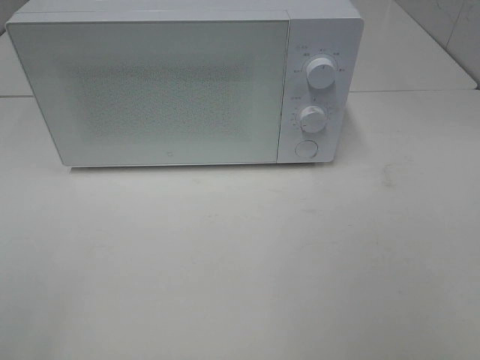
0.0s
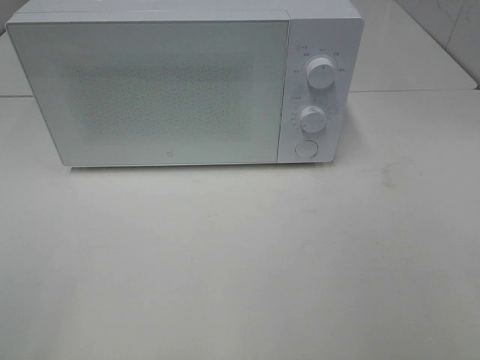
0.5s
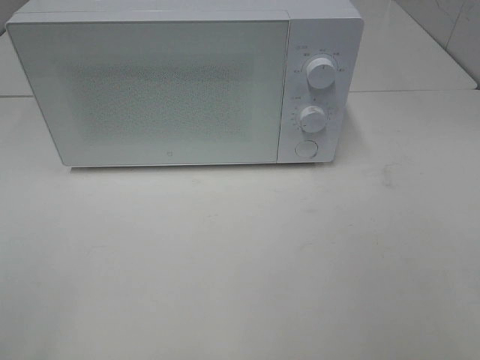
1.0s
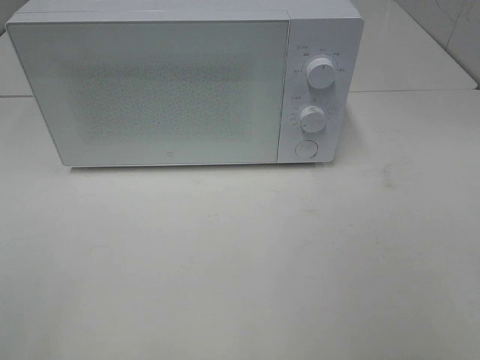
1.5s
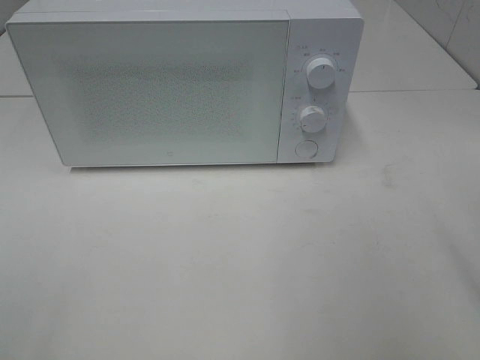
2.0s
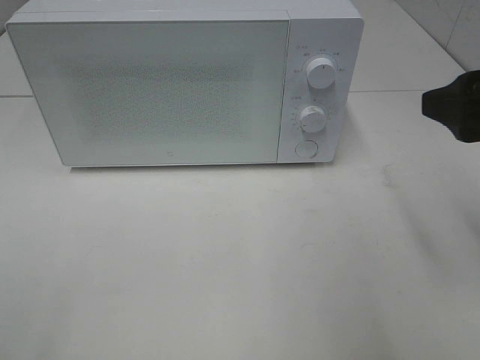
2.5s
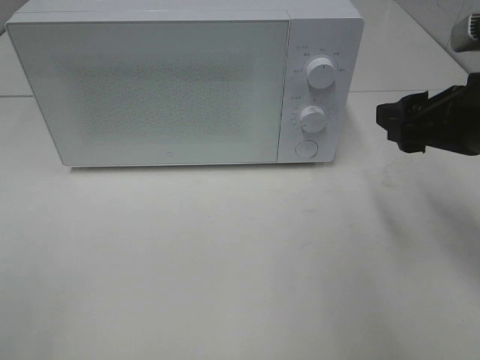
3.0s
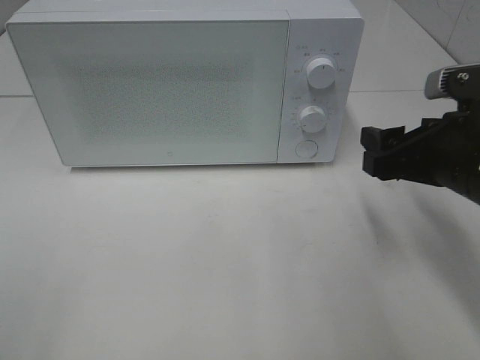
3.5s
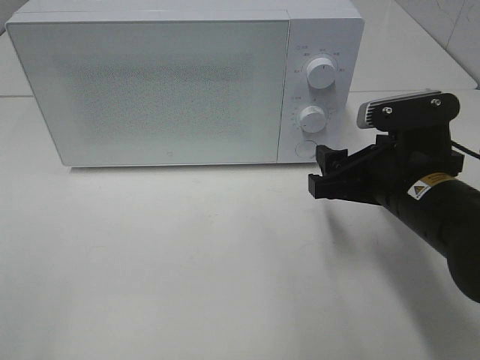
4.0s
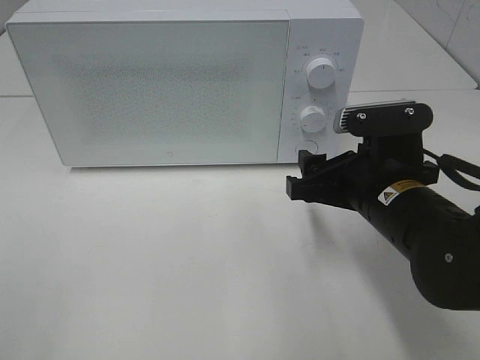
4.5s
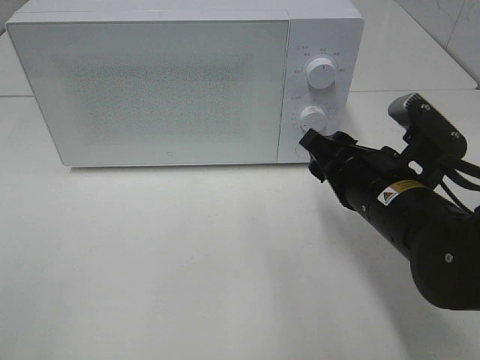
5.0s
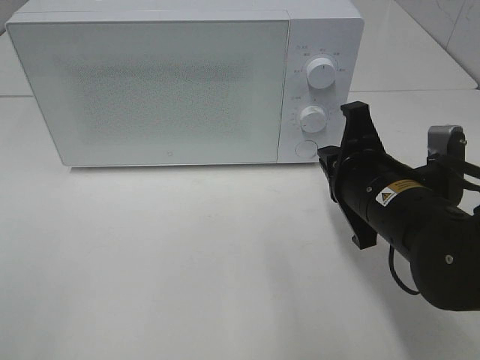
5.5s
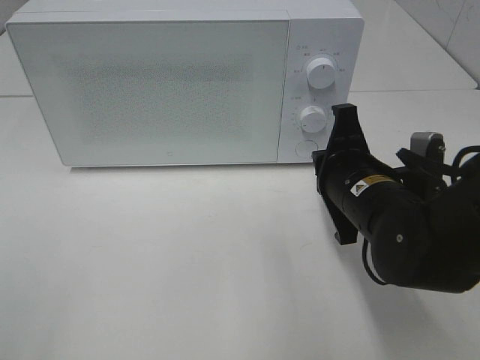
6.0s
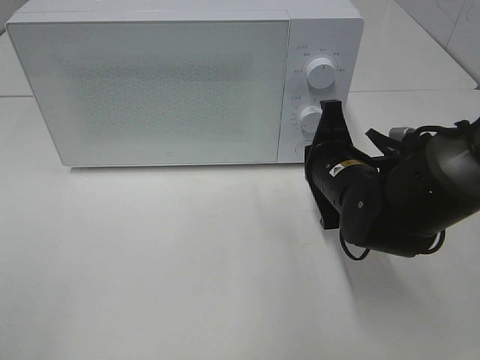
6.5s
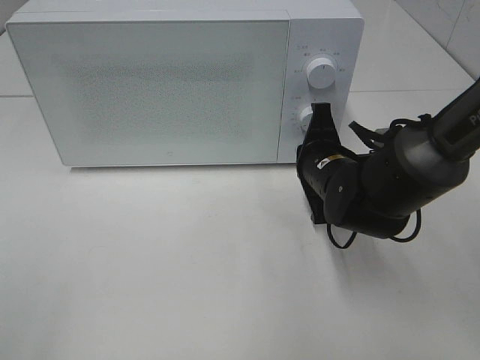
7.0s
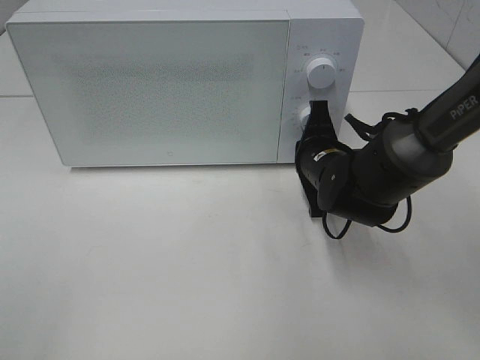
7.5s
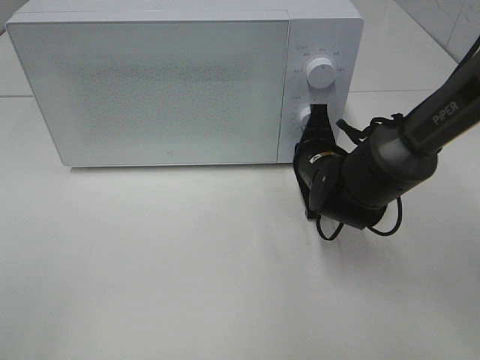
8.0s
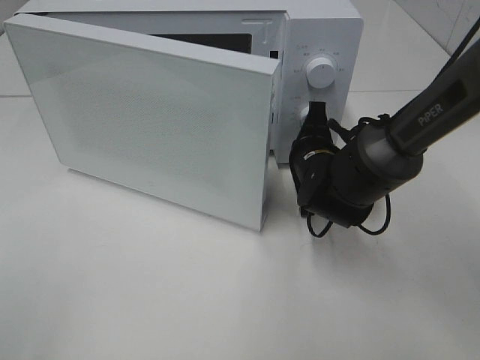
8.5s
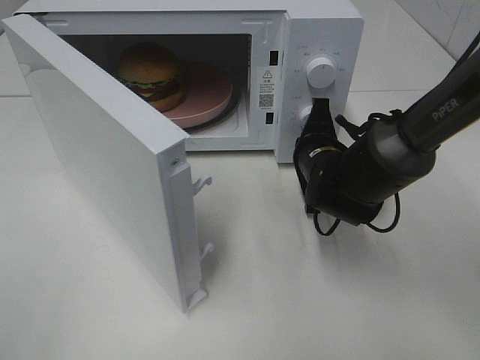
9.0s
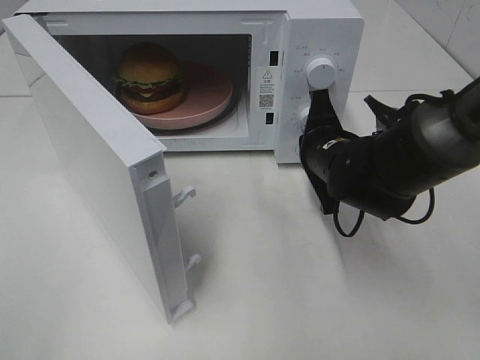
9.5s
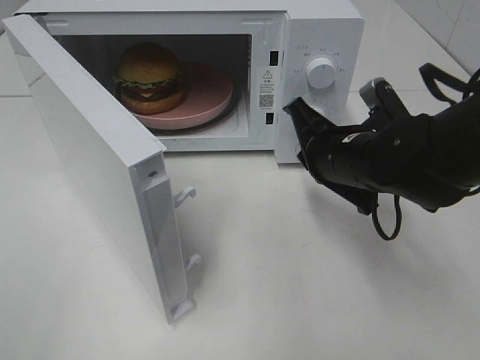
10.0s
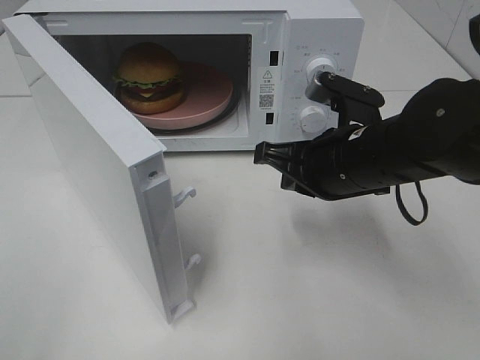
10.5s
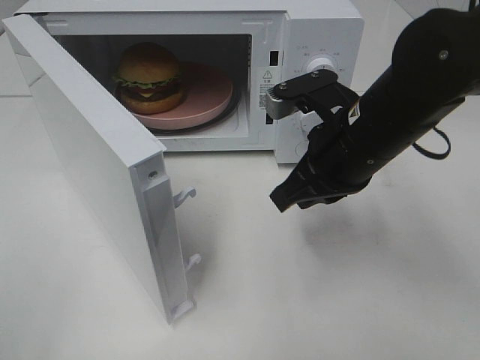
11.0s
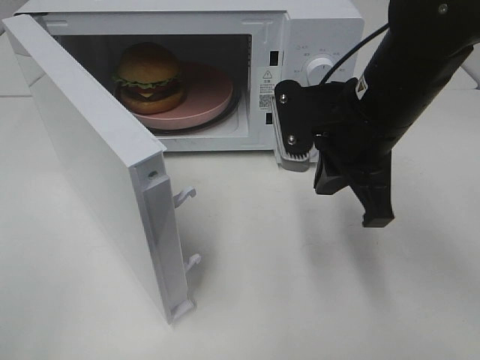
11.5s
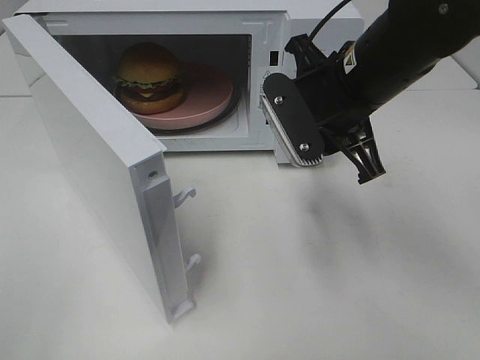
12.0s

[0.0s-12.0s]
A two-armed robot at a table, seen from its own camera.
Task of the whole recording: Heat the burger.
Step, 0.0s to 9.5s: Right hand: press the switch.
2.0s to 4.0s: The right gripper is displaced downward, forward and to the left by roughly 20 cm.
4.0s to 6.0s: The right gripper moves some 5 cm, and closes.
6.0s to 8.0s: The right gripper goes some 10 cm forward.
8.0s to 10.0s: The right gripper travels upward and backward by some 10 cm.
10.0s to 12.0s: The right gripper moves upward, about 10 cm, and opens up.

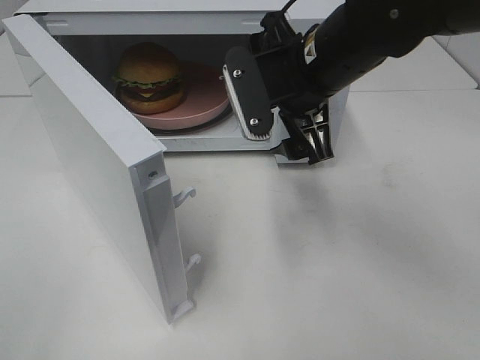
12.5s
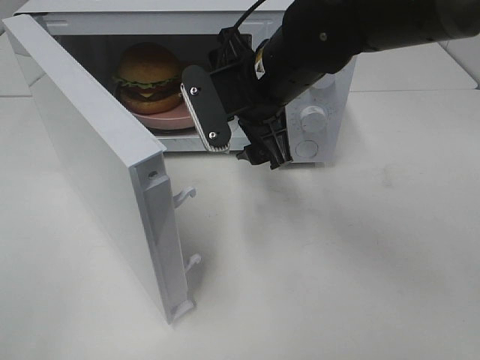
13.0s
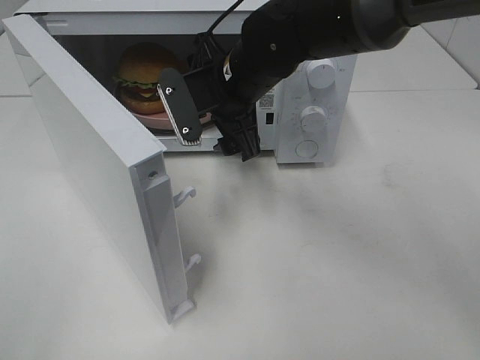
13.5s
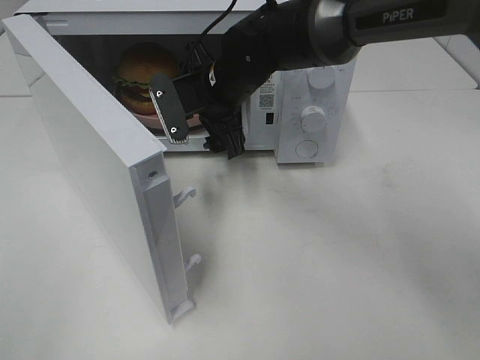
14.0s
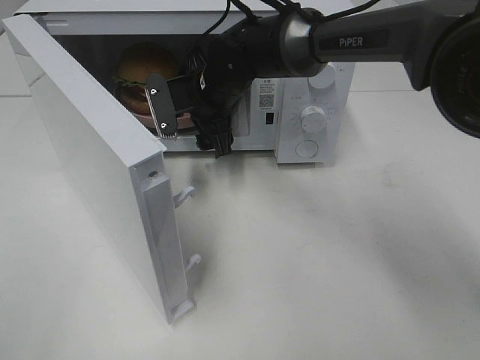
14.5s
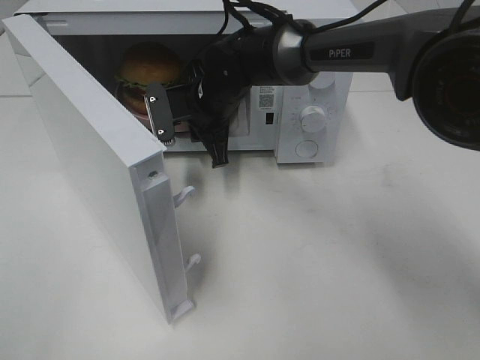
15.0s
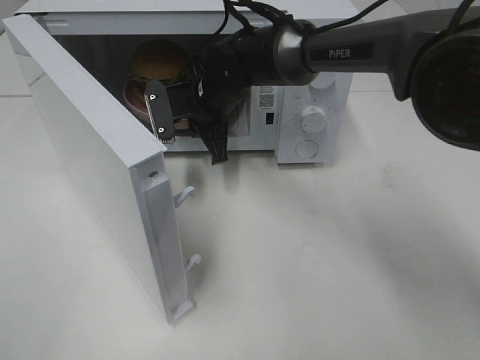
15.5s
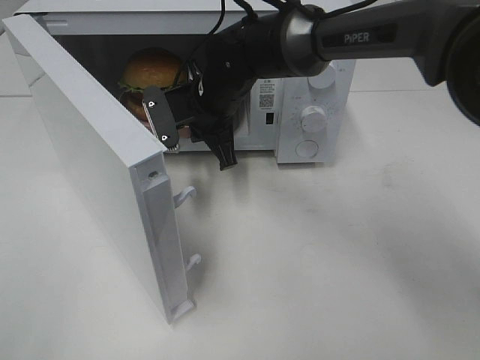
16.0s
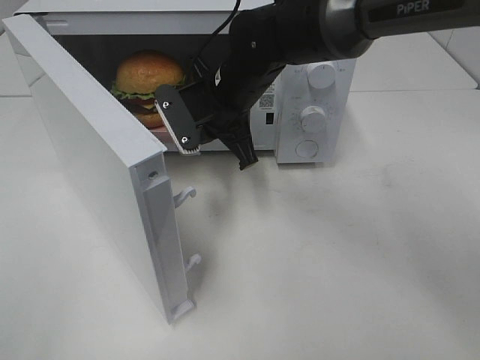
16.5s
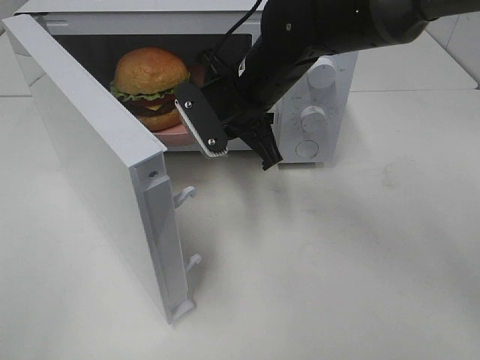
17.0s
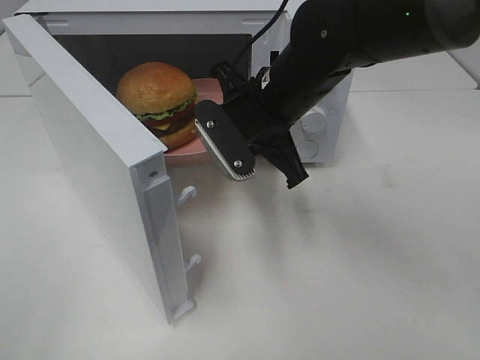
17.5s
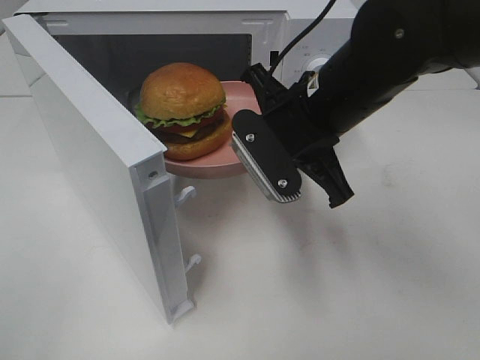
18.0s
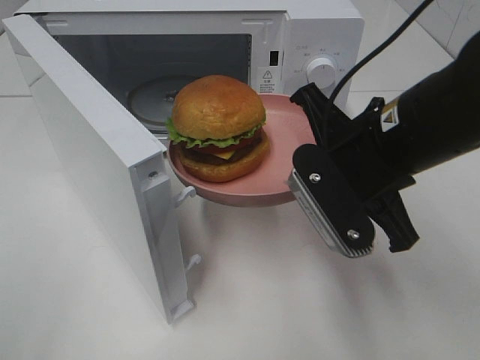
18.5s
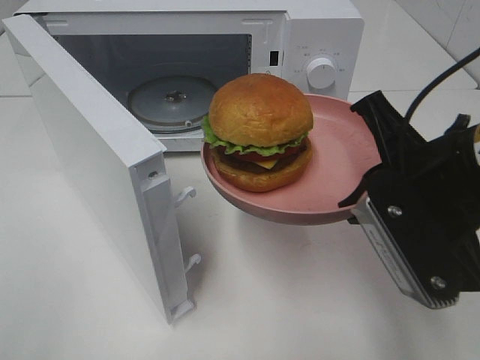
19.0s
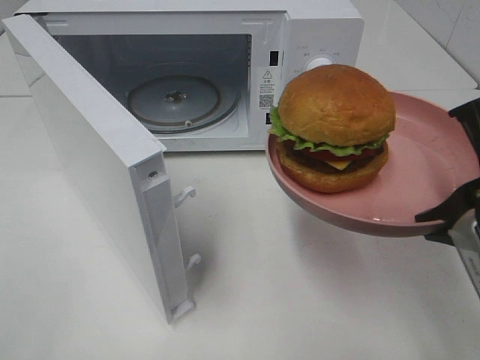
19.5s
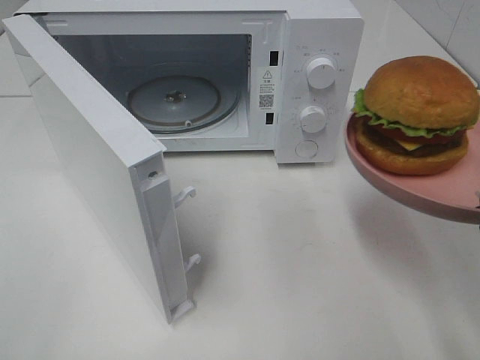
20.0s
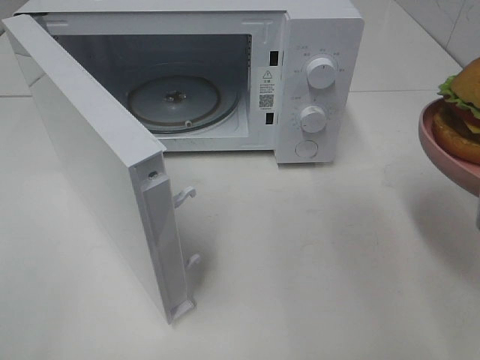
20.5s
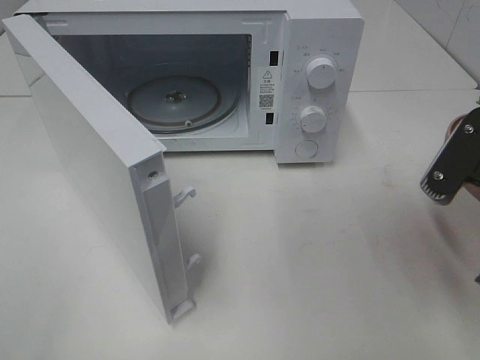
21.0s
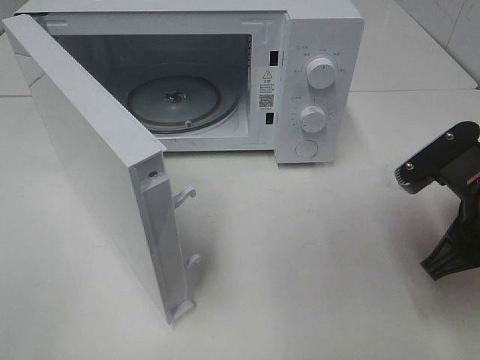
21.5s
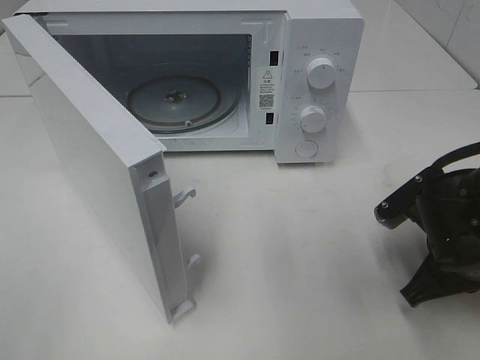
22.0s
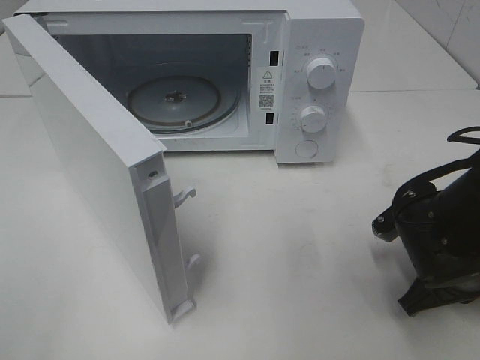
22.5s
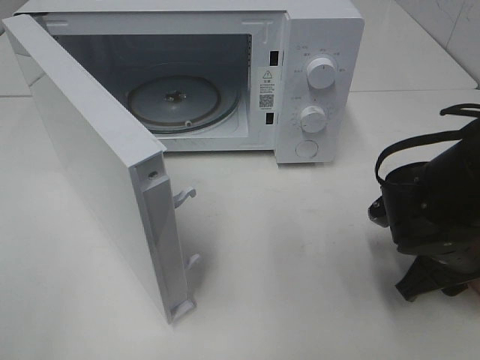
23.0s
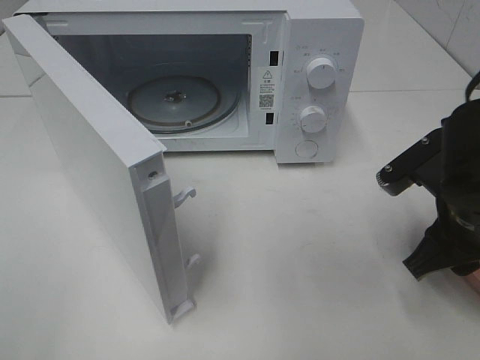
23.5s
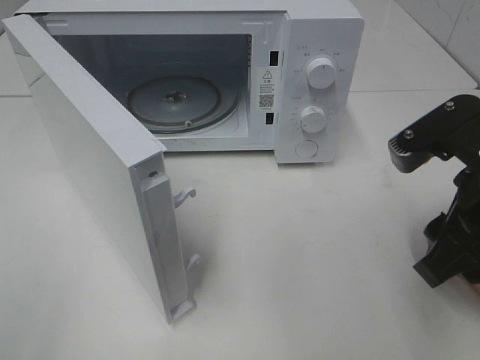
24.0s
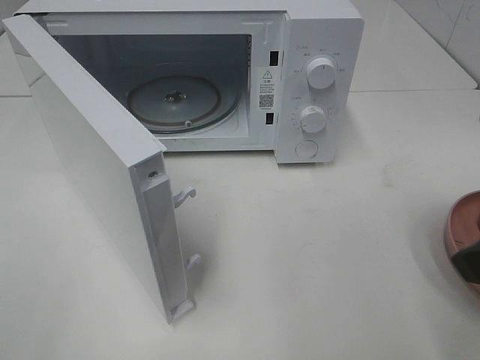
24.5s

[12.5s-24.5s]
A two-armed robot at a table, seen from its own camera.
Task of the whole recording: Heat the burger.
Step, 12.5s to 15.0s: Right hand: grab the plate with the hamburger.
Step, 15.5s to 23.5s: Right hand: place the plate on the table.
12.5s to 14.5s: The right gripper travels forward, to the left and downward by some 15 cm.
14.5s to 16.5s: The right gripper shifts by roughly 5 cm, and closes up.
16.5s to 18.5s: The right gripper shifts roughly 20 cm backward and to the right.
18.5s to 20.5s: The right gripper travels to the right and backward by approximately 15 cm.
20.5s to 22.5s: The right gripper travels downward by roughly 15 cm.
22.5s to 24.5s: The right gripper goes about 20 cm upward and backward, and opens up.

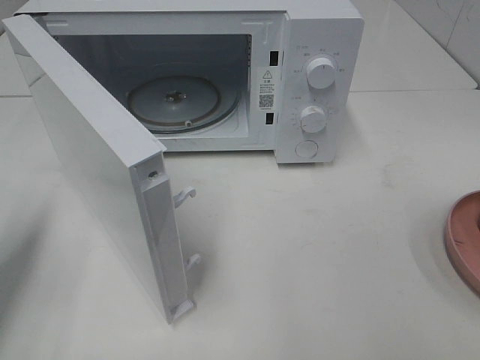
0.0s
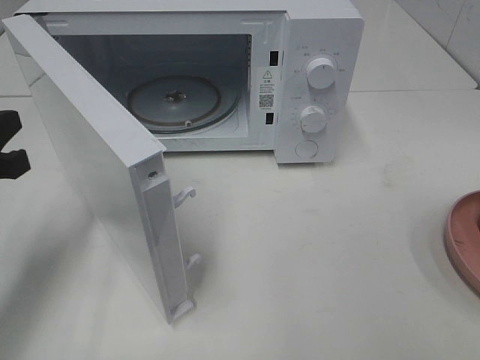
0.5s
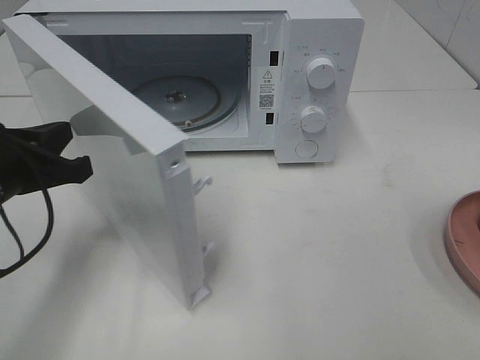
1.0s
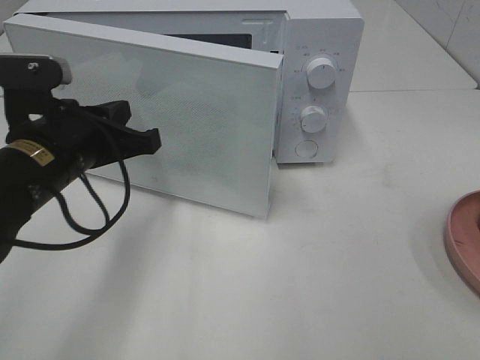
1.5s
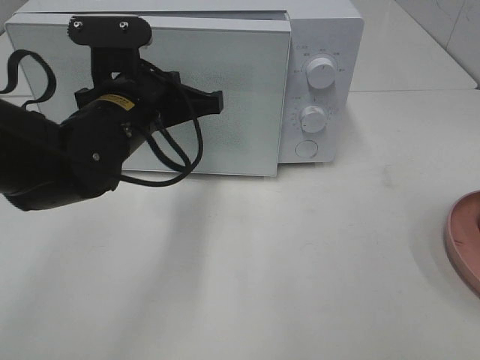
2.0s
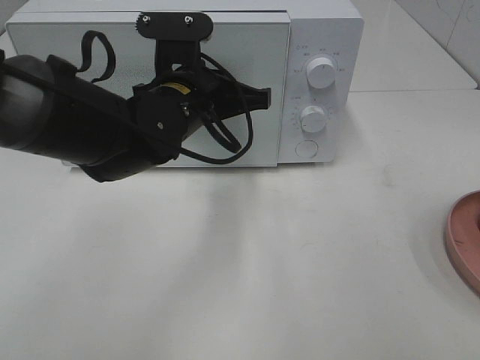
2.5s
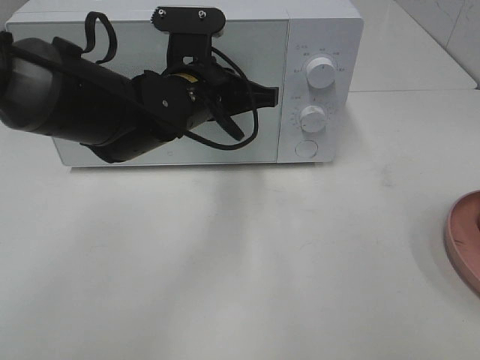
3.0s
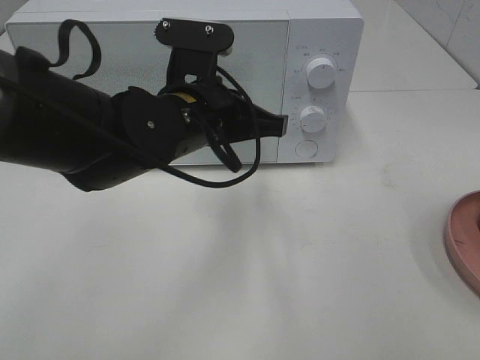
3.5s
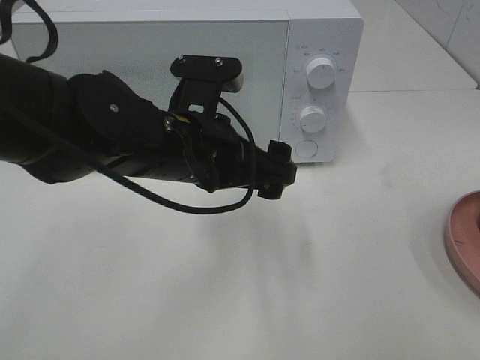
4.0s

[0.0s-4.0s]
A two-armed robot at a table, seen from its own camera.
Task of the whole recording: Heat the burger.
Step, 0.0s to 3.5s: Left hand: close the microwave door.
0.0s to 2.0s: The left gripper travels to the right and forward by about 25 cm.
2.0s to 4.0s: The left gripper goes approximately 5 cm to the right, and opens up.
